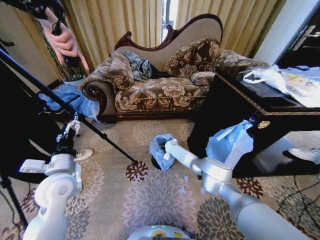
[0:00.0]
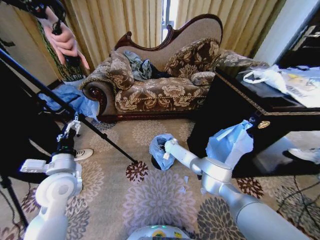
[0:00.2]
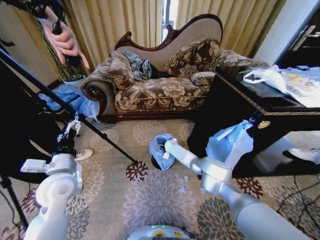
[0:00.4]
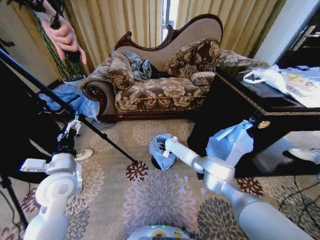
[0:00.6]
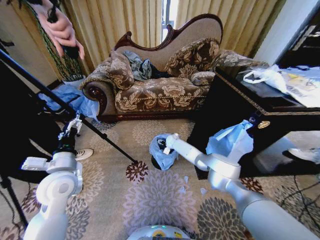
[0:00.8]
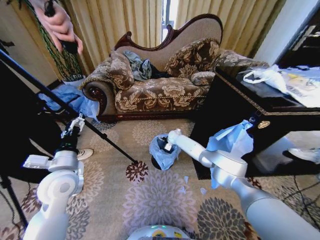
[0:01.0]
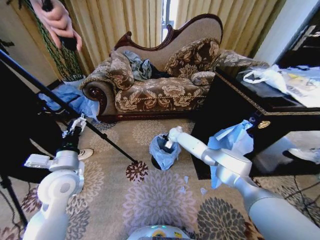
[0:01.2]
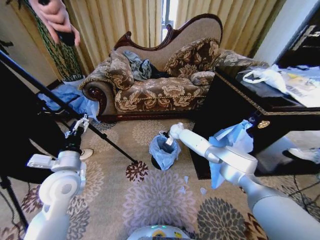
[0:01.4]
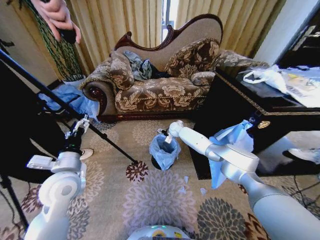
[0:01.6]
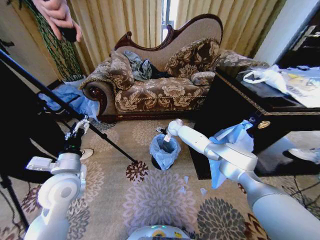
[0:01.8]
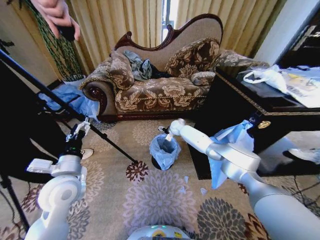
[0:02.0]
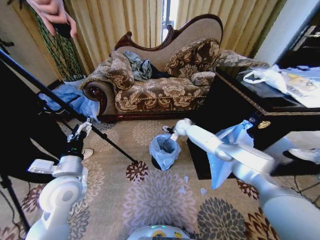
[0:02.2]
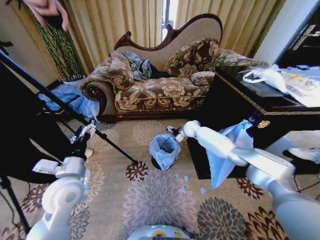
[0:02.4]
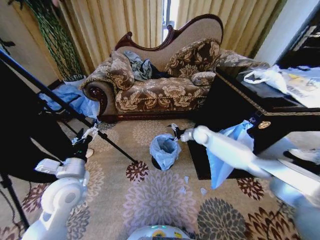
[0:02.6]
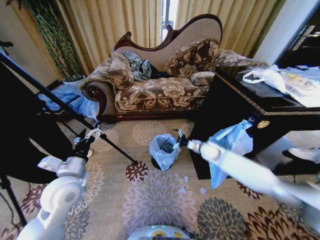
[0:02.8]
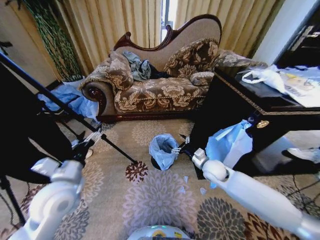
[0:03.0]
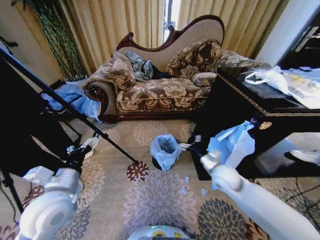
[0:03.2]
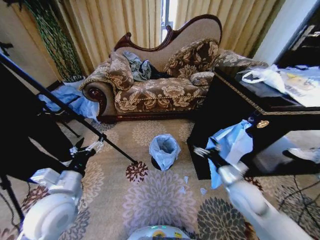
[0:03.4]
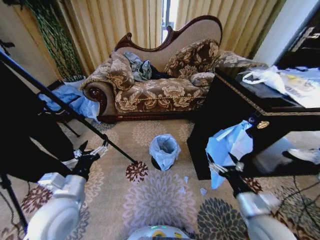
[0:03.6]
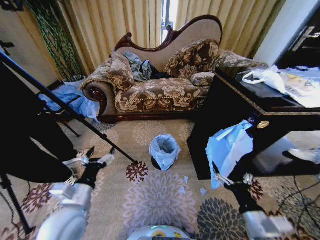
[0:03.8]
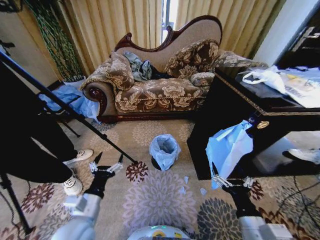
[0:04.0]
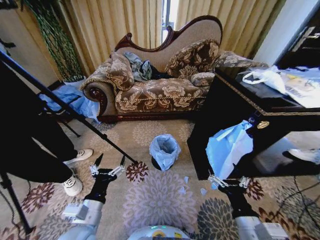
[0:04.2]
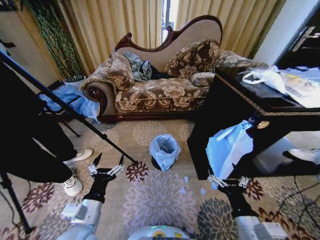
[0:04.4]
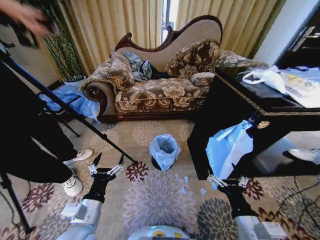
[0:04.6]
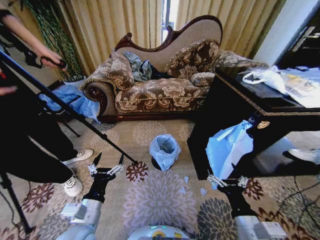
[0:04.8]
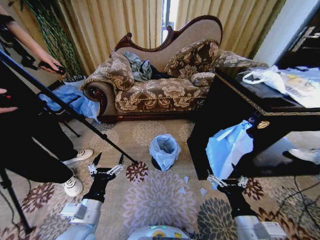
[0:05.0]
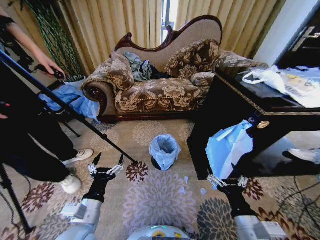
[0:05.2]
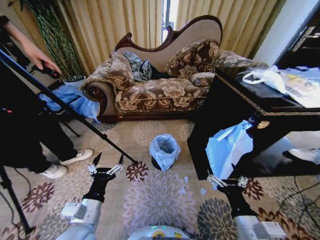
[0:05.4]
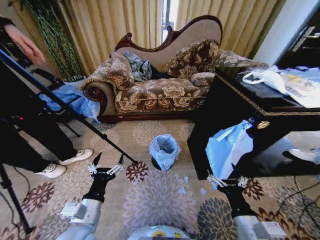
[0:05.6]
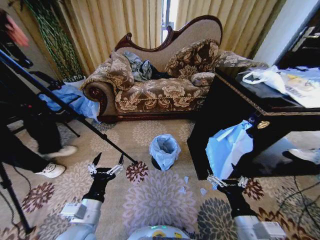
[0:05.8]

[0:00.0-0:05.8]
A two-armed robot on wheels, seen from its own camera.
Task of the whole recording: Place a garbage bag over the trash bin.
0:00.0 to 0:01.4: The right gripper goes about 10 cm upward.
0:01.4 to 0:02.8: The right gripper moves backward and to the right, some 25 cm.
0:02.8 to 0:04.4: The right gripper heads backward, covering about 35 cm. Meanwhile the left gripper is displaced backward, to the right and downward by about 15 cm.
0:04.4 to 0:05.8: Both grippers stay put.
